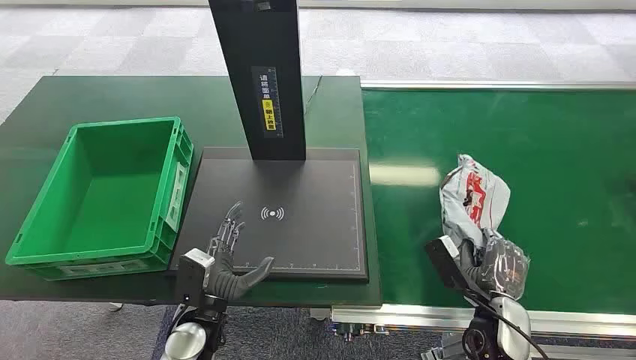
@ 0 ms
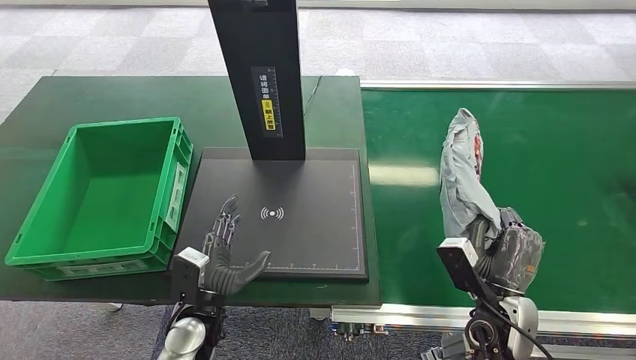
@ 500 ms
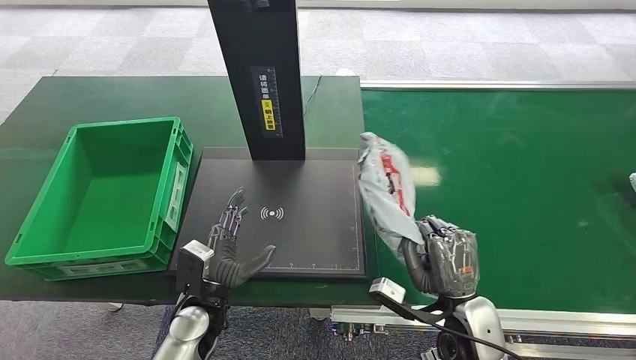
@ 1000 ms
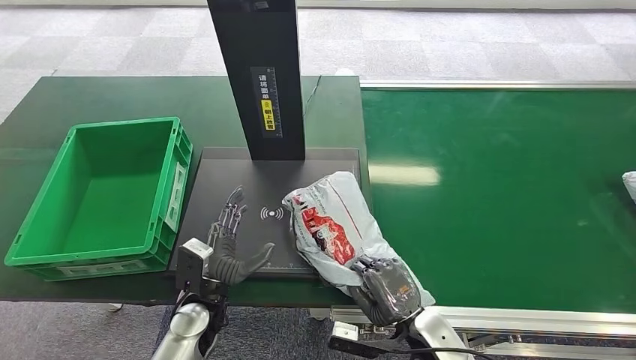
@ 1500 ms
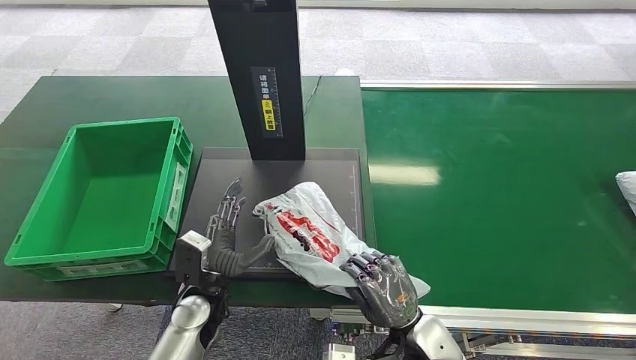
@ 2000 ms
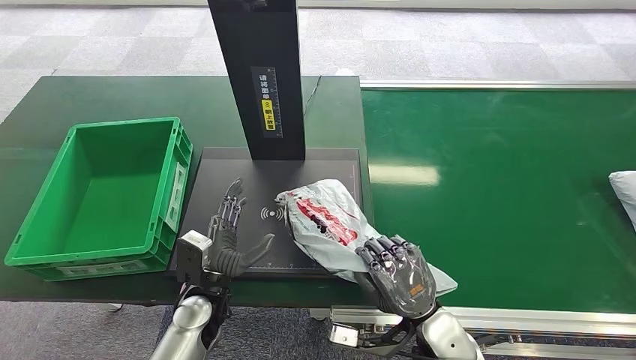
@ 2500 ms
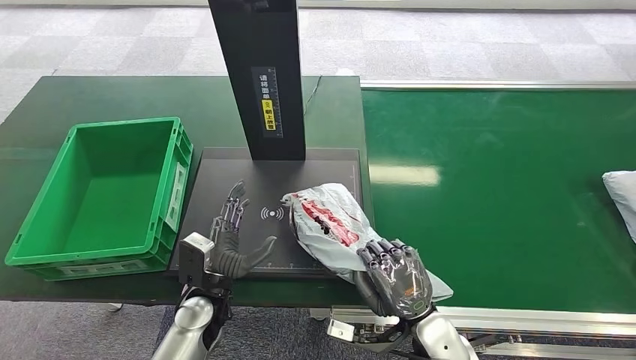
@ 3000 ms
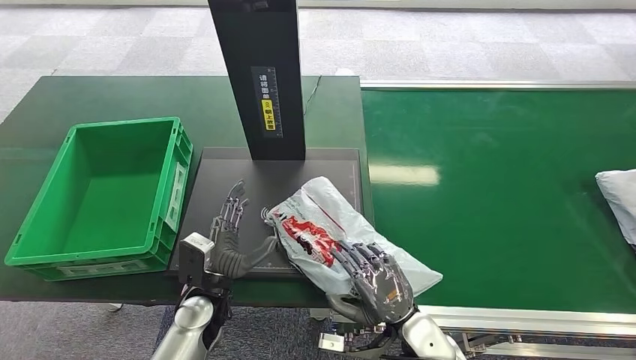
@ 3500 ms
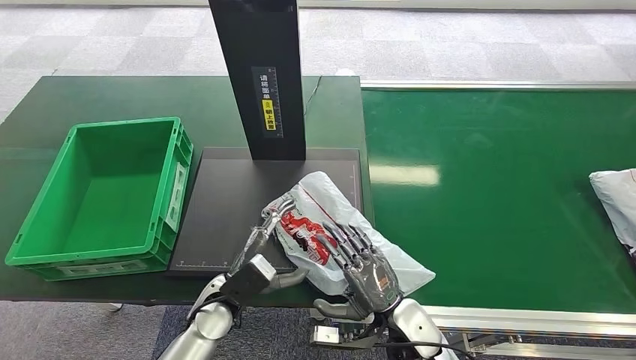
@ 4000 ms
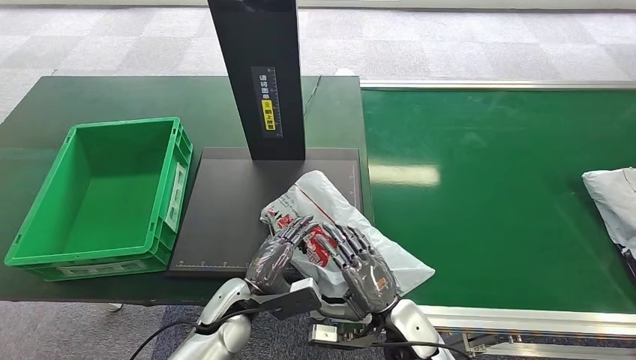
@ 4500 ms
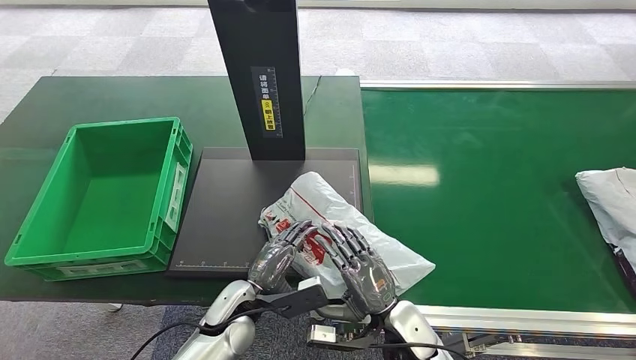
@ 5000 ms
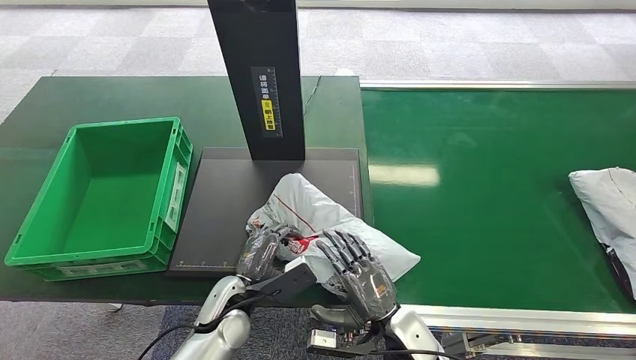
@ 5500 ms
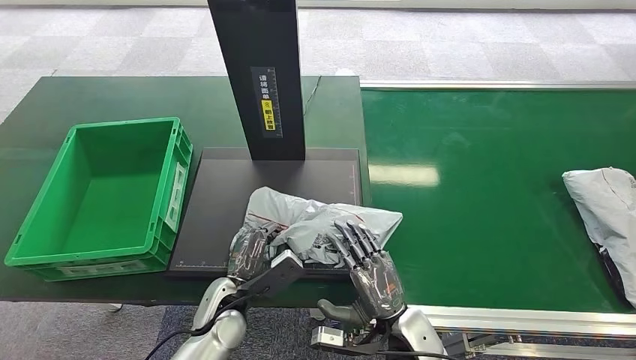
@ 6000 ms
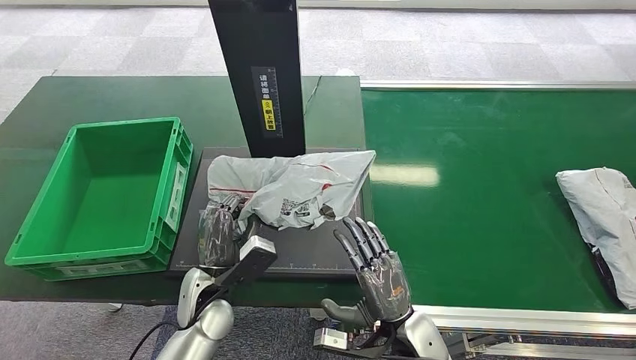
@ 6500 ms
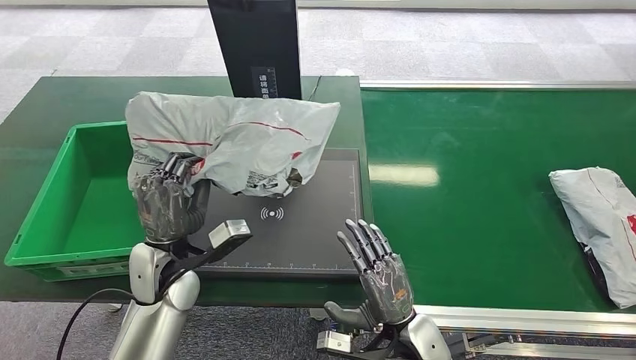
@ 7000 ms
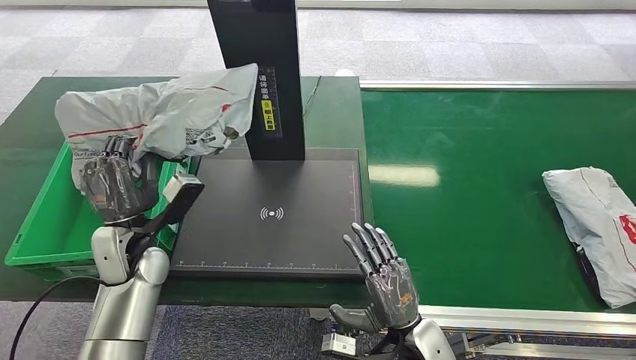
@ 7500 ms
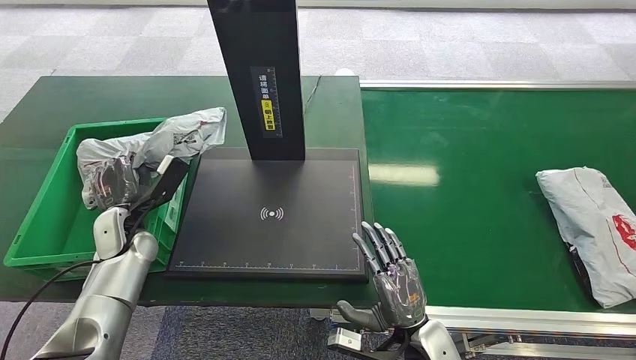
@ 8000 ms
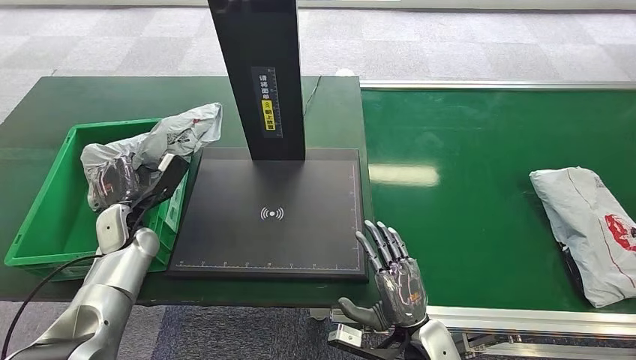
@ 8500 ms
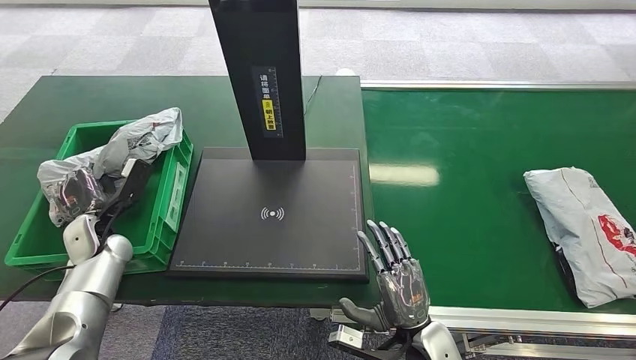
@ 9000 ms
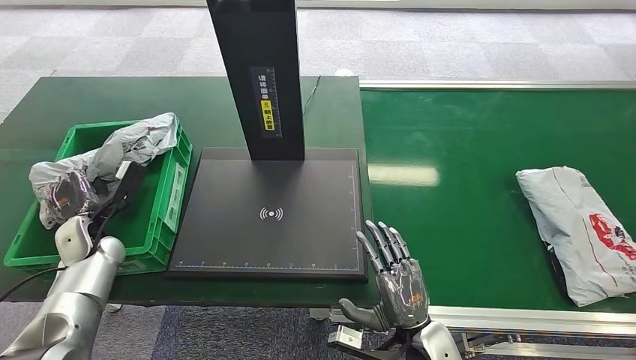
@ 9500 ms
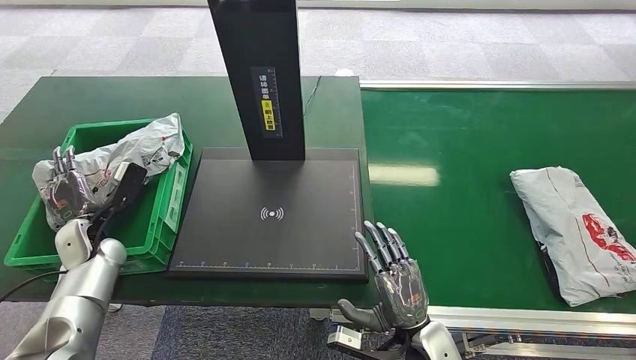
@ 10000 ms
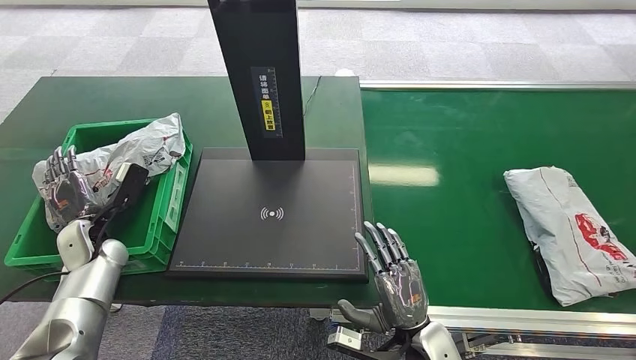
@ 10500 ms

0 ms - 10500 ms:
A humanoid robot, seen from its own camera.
Step, 0 ms - 500 ms: Pick up the package from the conveyor belt.
8500 ms - 10500 ms: The left hand heads to the left, covering about 5 cm.

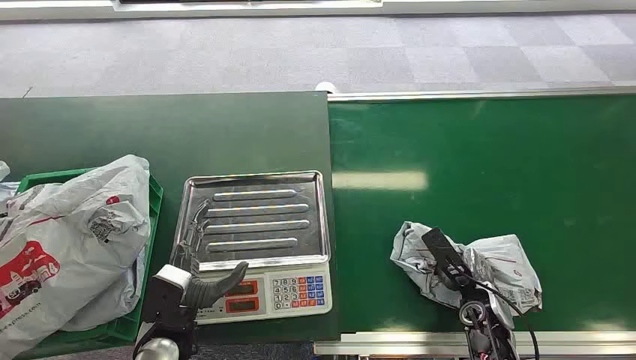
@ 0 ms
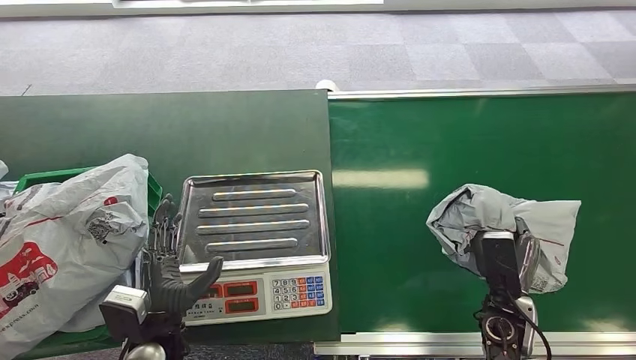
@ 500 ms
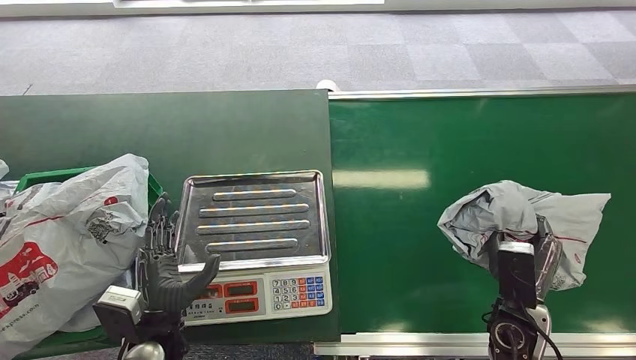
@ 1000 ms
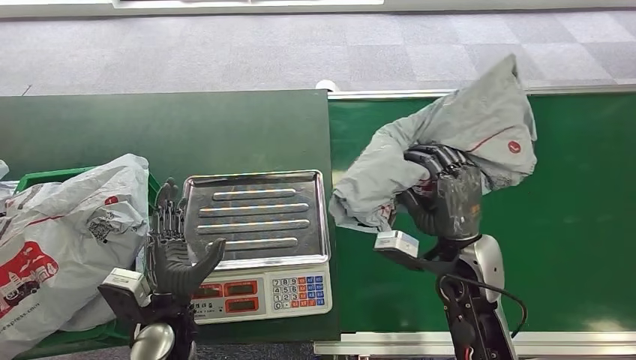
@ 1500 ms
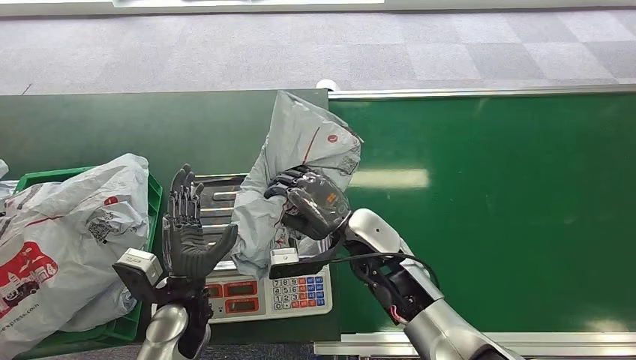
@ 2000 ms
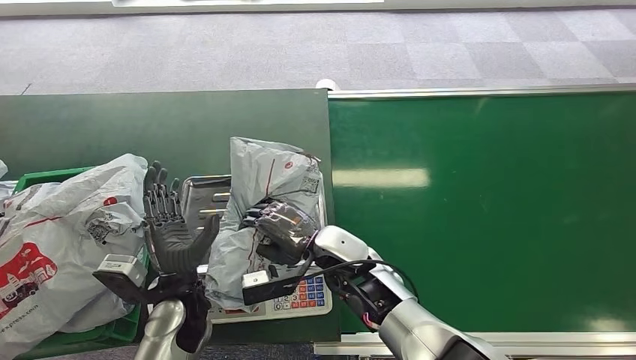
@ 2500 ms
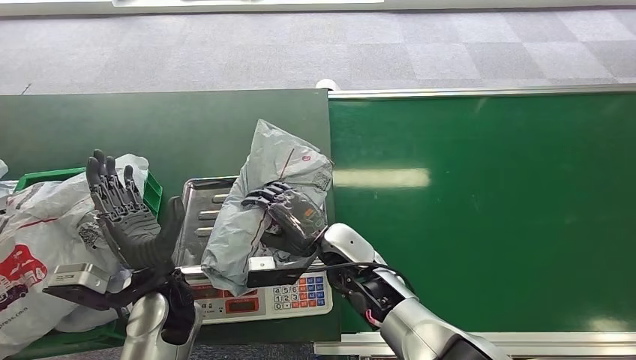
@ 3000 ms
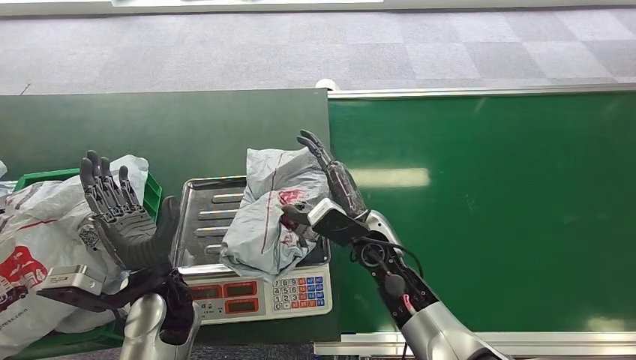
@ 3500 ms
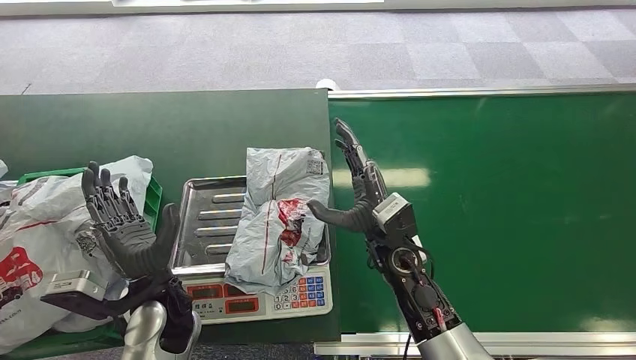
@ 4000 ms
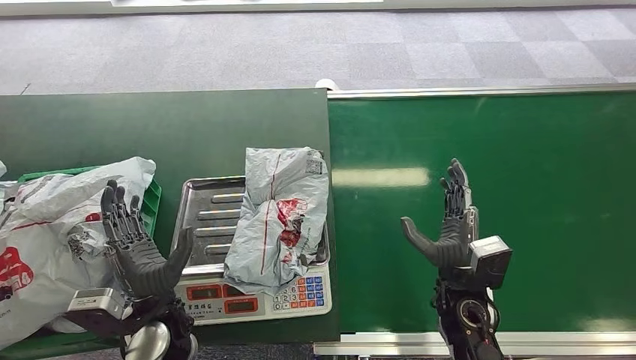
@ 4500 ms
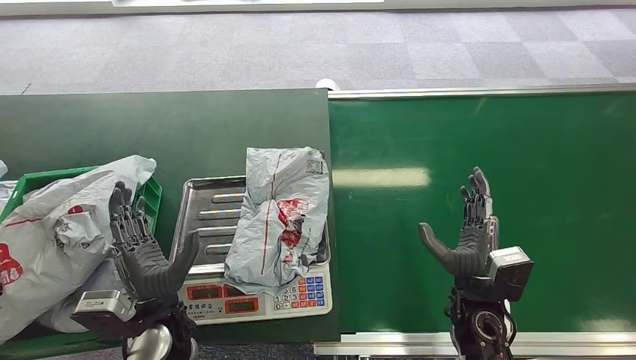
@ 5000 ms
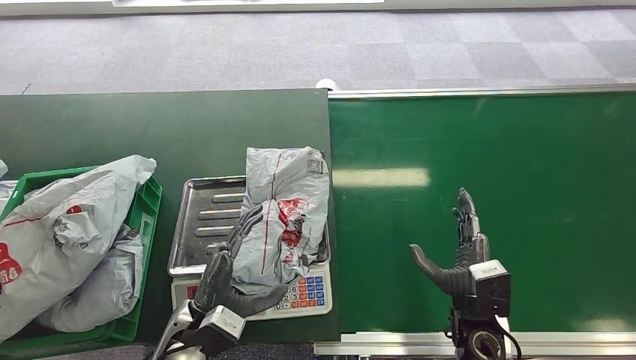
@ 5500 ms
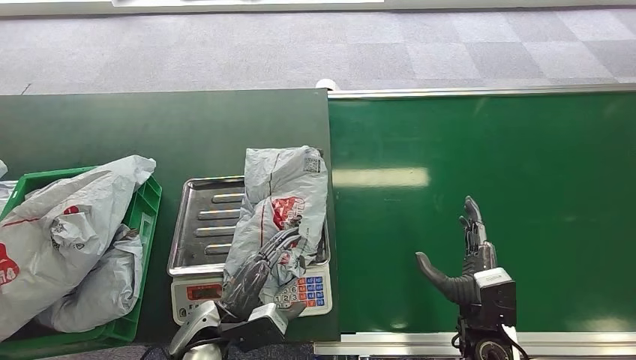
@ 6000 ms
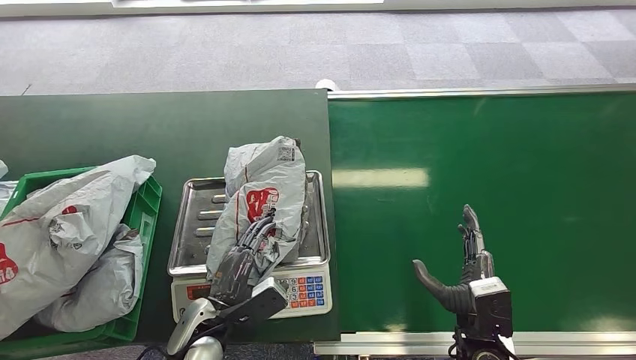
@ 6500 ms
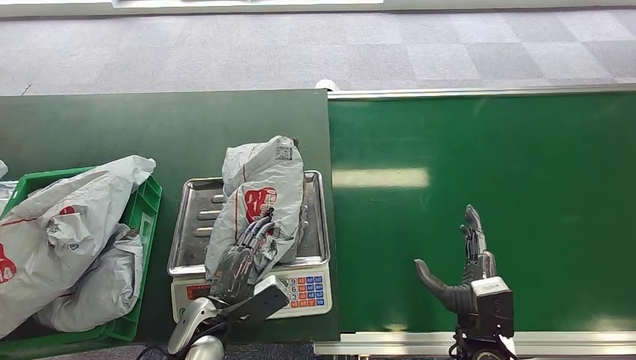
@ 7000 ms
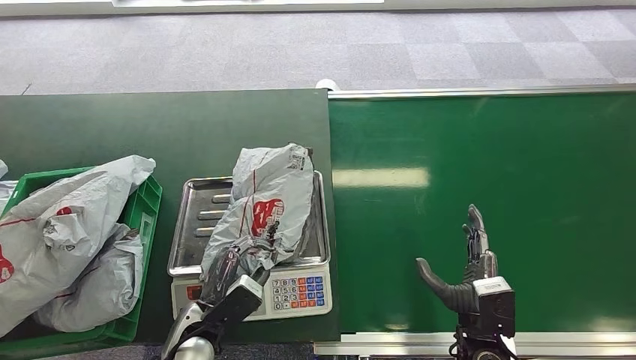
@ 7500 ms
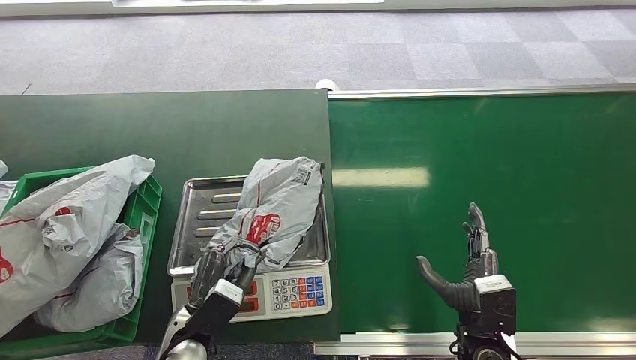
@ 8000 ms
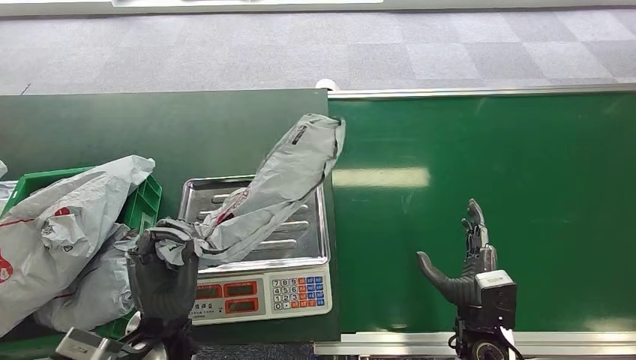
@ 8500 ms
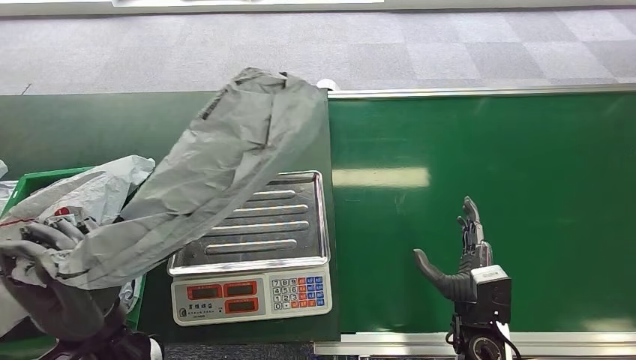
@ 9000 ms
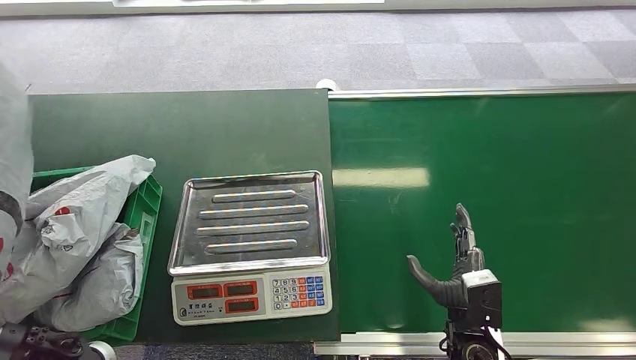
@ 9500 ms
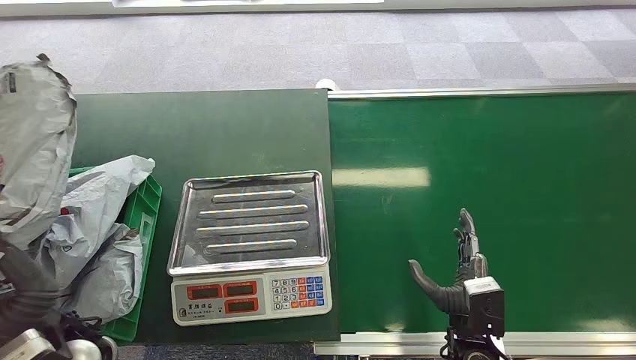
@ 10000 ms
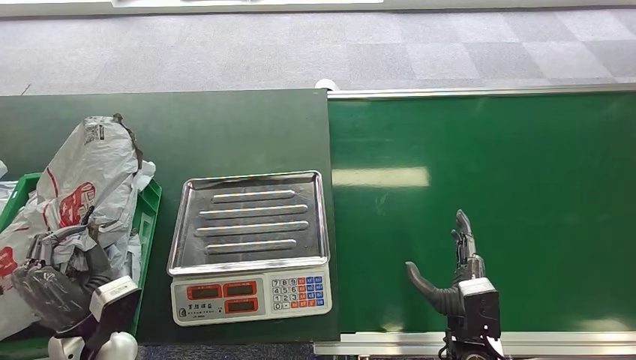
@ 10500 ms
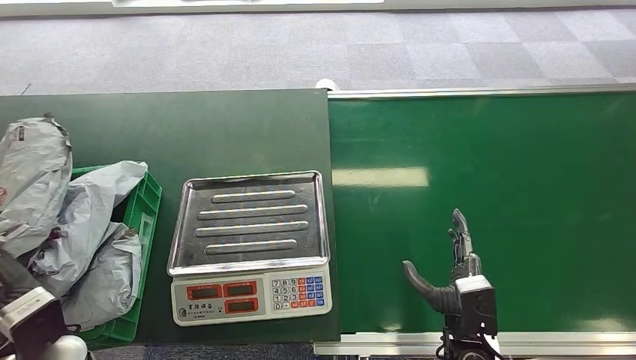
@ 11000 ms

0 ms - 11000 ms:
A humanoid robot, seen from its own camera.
Step, 0 ms - 1000 ms: Pick up the package from the conveyor belt.
Step, 2000 ms - 3000 ms: Place the package onto the inbound machine.
Step, 8000 ms - 8500 ms: Pick up the package from the inbound machine.
Step, 9500 ms - 11000 ms: Place the package into the parcel locker.
3500 ms - 5500 ms: The left hand heads downward, covering roughly 5 cm; the right hand goes about 20 cm to the right and backward.
7500 ms - 9000 ms: The left hand is displaced upward by approximately 15 cm.
9000 ms - 11000 ms: The left hand is displaced to the left and downward by approximately 15 cm.
